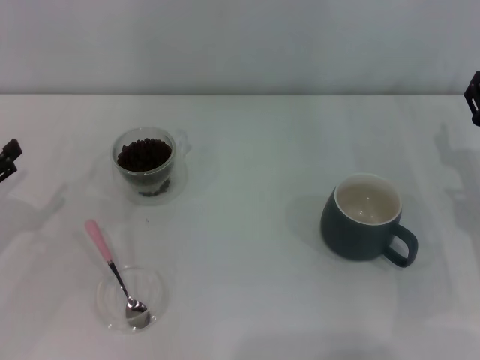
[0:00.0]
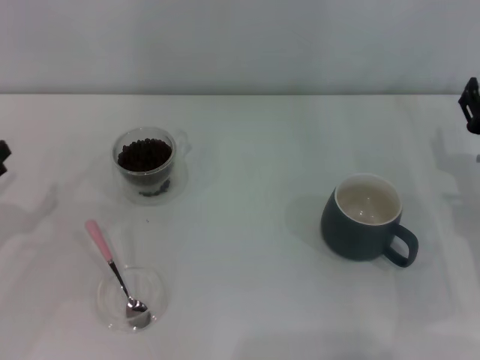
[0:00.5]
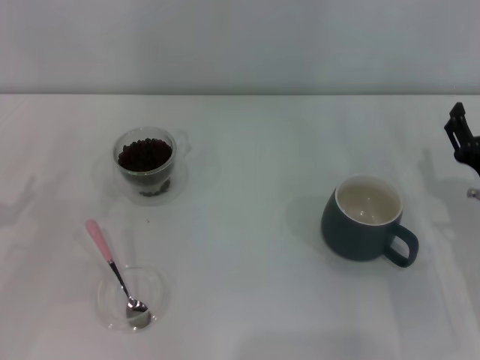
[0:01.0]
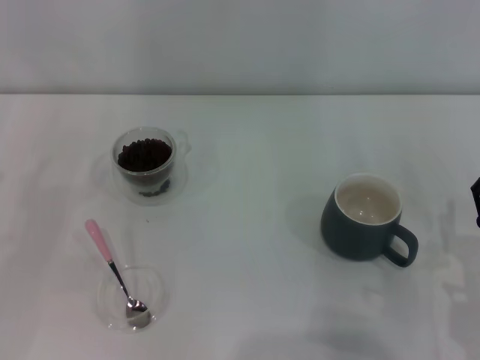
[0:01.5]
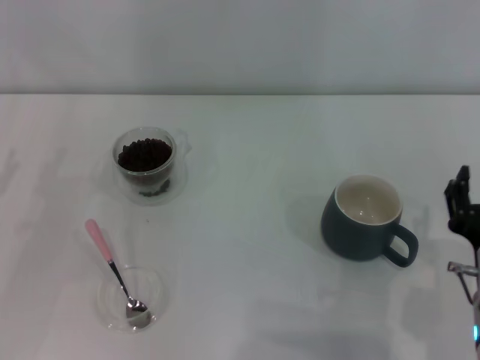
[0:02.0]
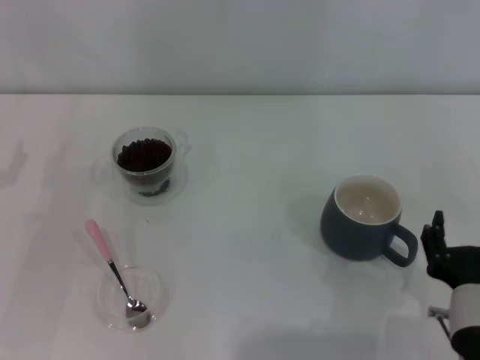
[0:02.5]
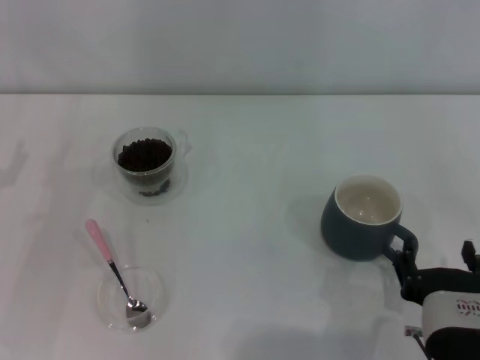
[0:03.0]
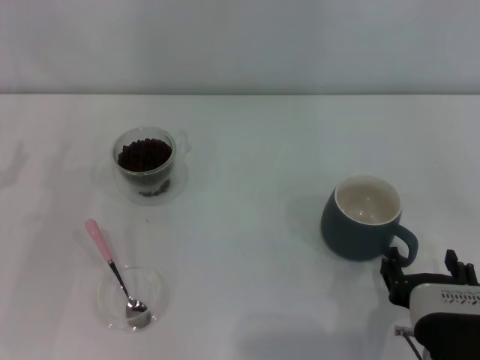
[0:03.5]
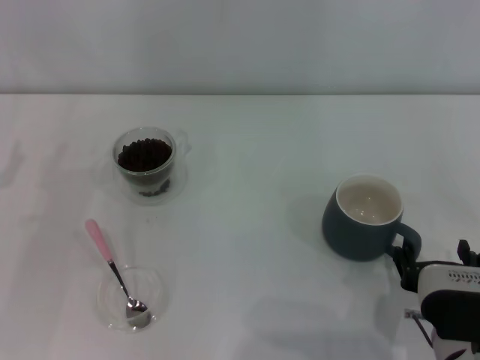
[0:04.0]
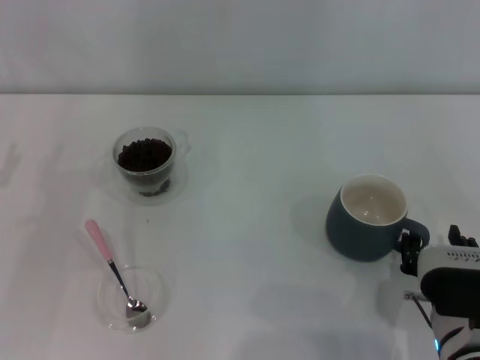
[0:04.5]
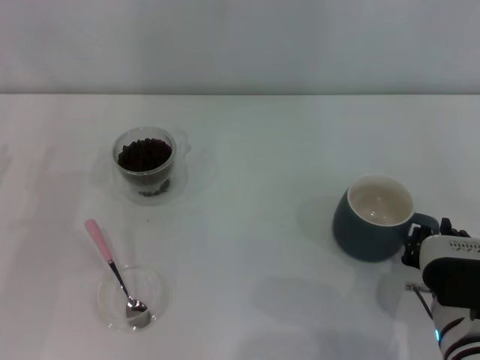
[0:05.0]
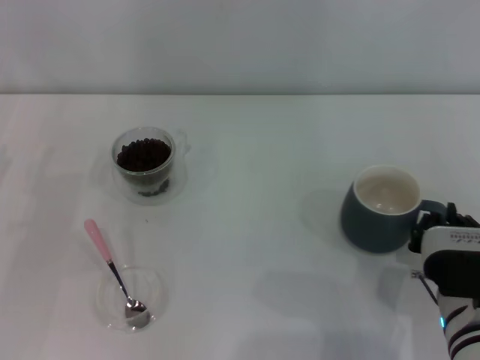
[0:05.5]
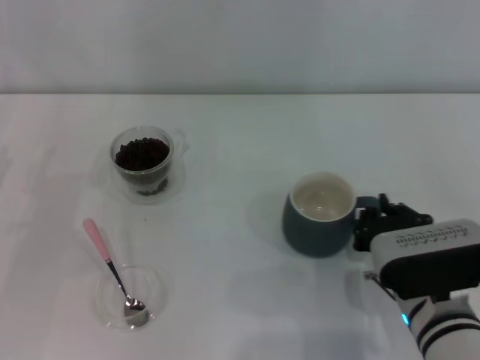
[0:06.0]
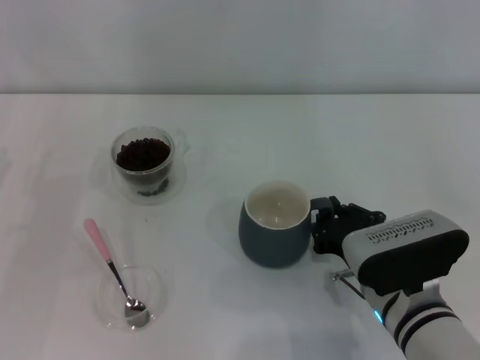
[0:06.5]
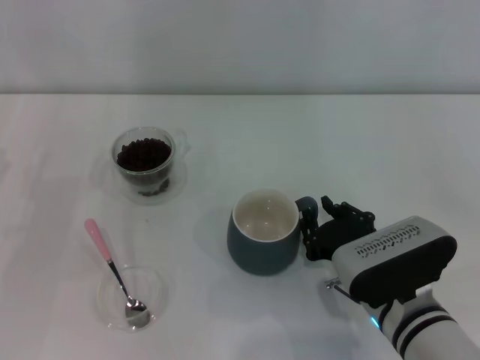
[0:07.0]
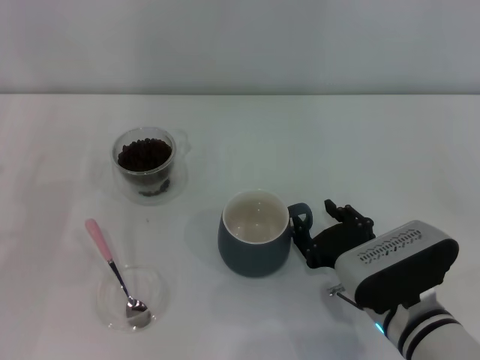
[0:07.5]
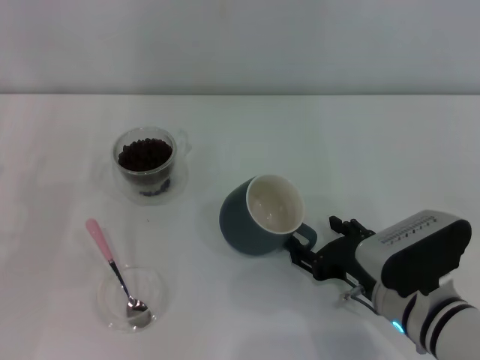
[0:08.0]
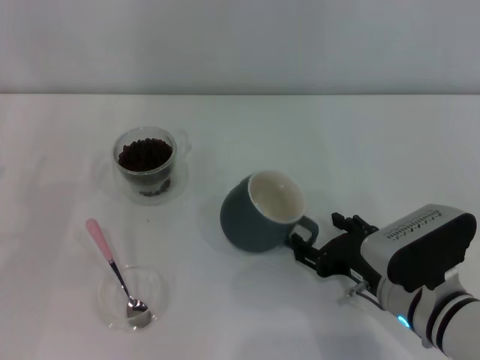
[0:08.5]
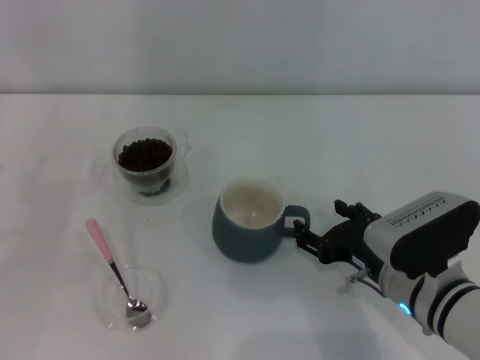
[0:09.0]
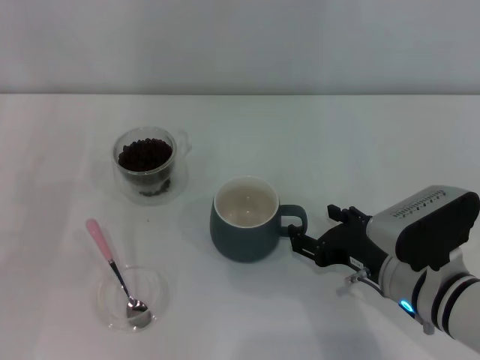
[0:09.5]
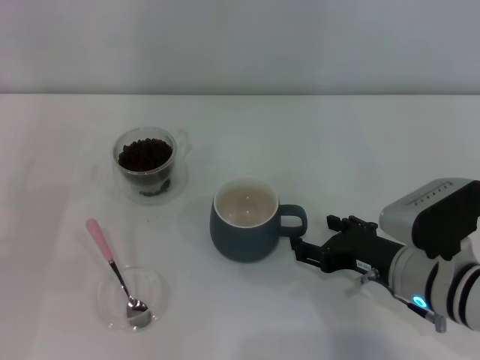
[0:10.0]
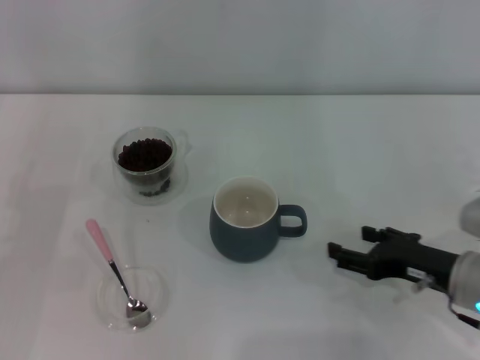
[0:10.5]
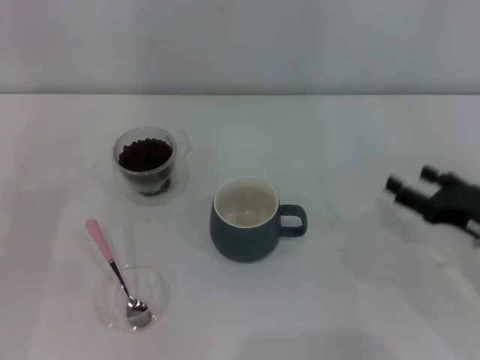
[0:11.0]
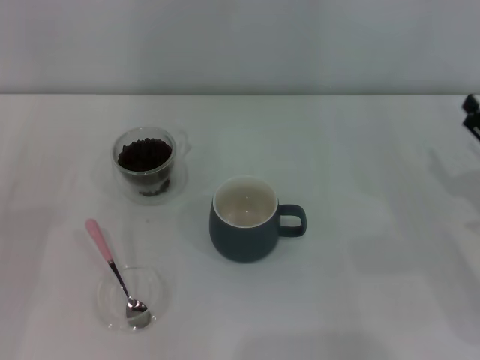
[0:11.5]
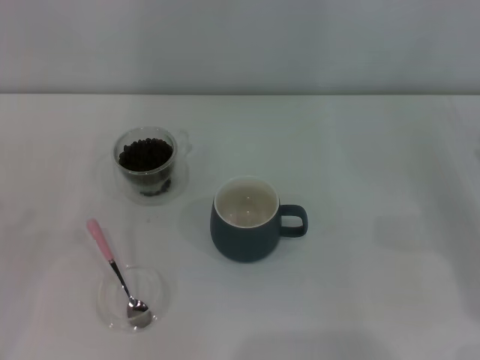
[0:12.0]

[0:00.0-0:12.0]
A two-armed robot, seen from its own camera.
Task of the whole recording: Use a pink spoon to take out the coffee beans from the glass and pour them into the gray cup.
Step, 0:00.0 to 0:10.0: Move the cup to the center of view with the left gripper.
0:00.0 to 0:02.0: The right gripper travels backward and to the left by approximately 20 cm.
0:04.0 to 0:06.0: The right gripper shifts approximately 5 cm forward, and closes its fingers.
0:06.0 to 0:08.0: The right gripper opens.
0:08.0 to 0:10.0: The grippers make only small movements.
0:10.0 to 0:12.0: The right gripper is displaced to the right by approximately 20 cm.

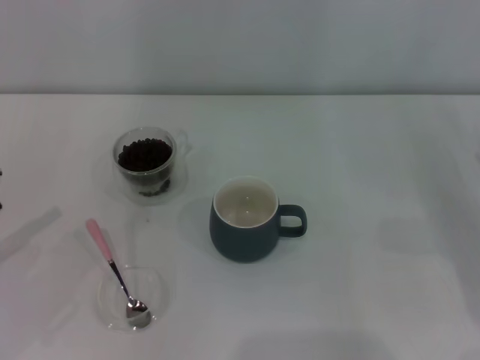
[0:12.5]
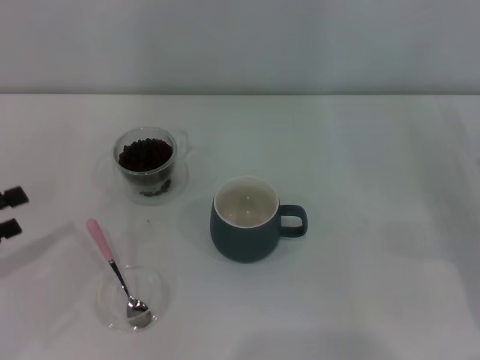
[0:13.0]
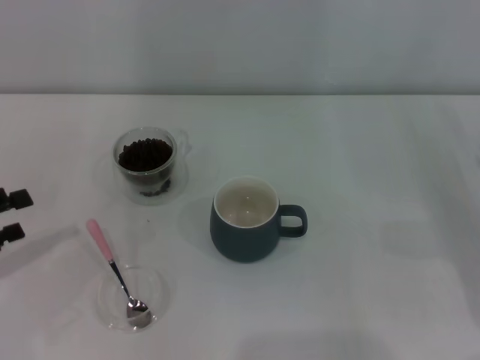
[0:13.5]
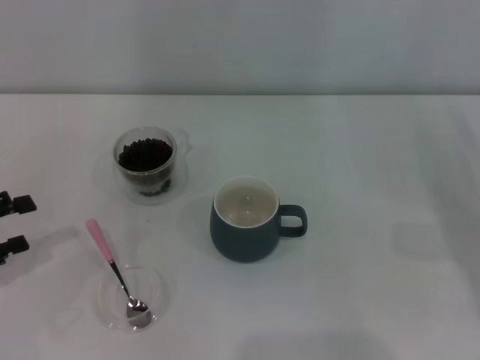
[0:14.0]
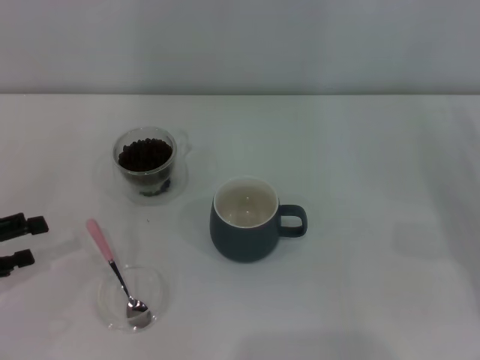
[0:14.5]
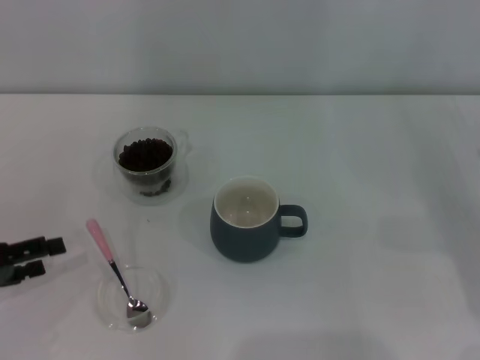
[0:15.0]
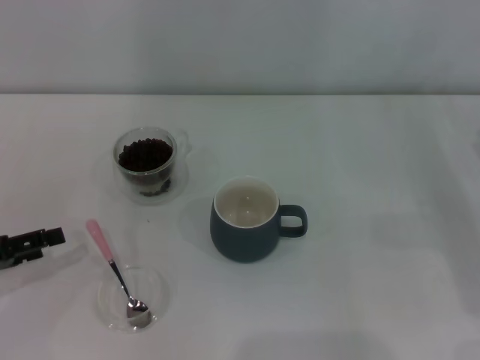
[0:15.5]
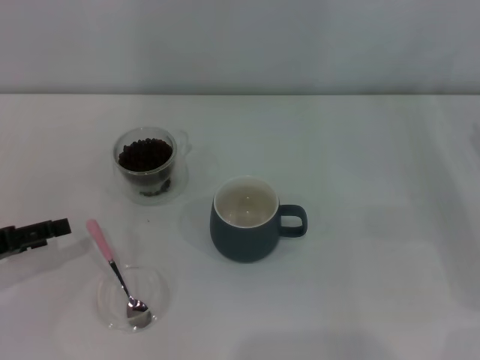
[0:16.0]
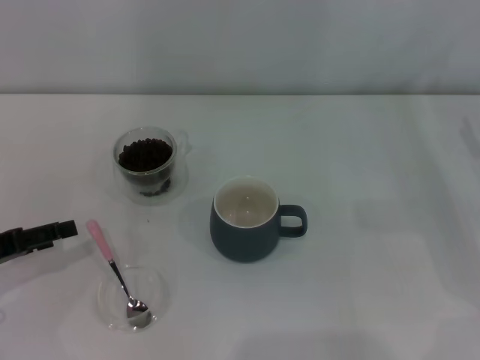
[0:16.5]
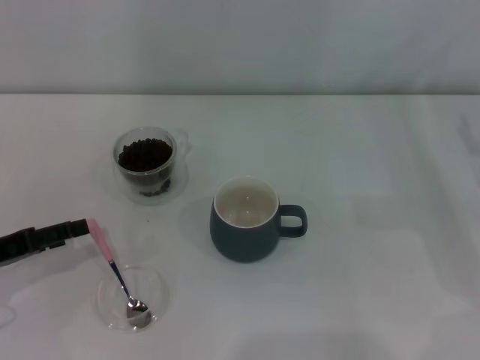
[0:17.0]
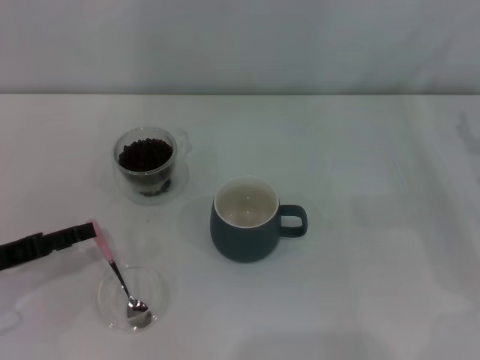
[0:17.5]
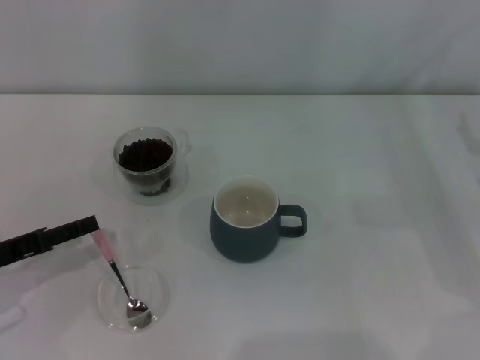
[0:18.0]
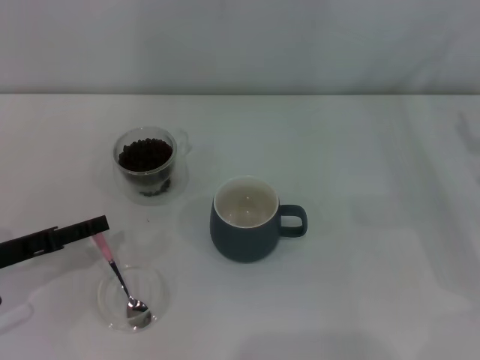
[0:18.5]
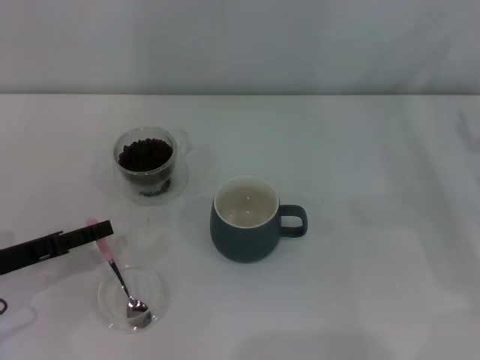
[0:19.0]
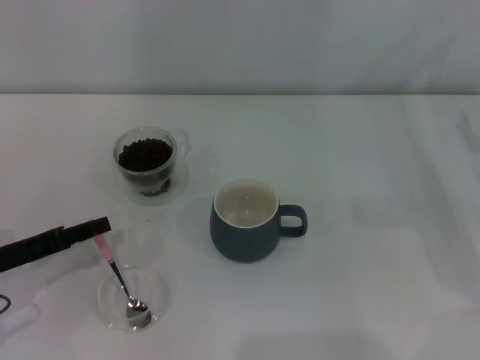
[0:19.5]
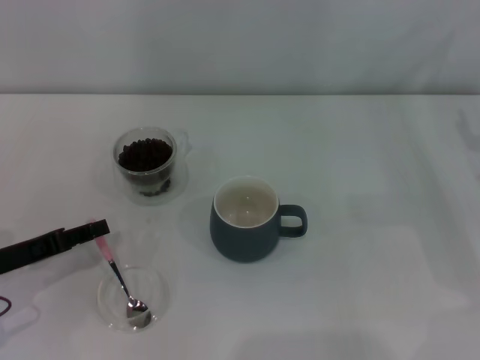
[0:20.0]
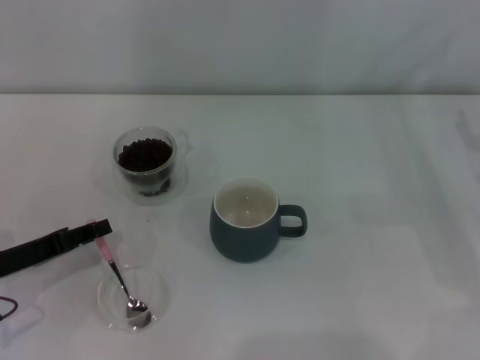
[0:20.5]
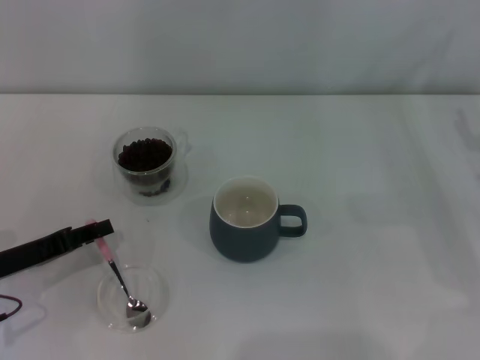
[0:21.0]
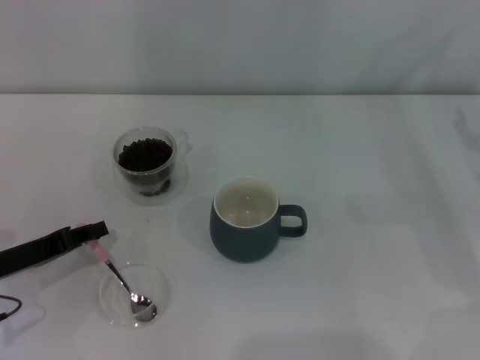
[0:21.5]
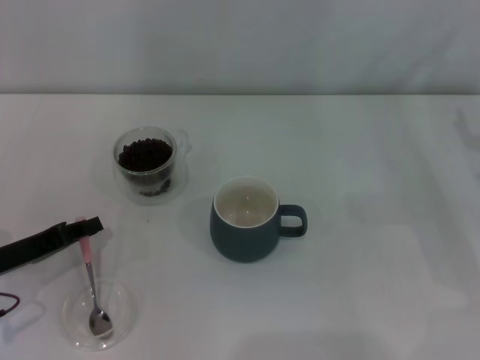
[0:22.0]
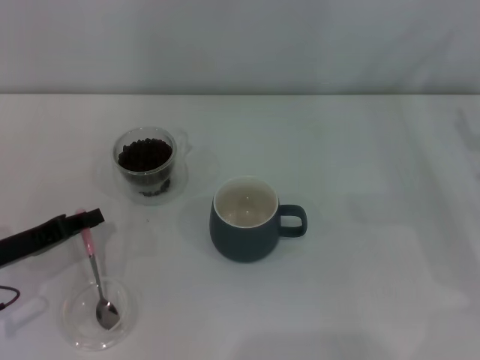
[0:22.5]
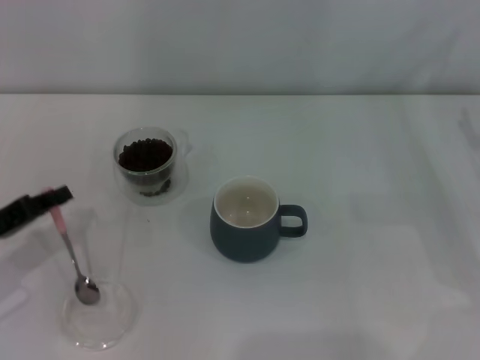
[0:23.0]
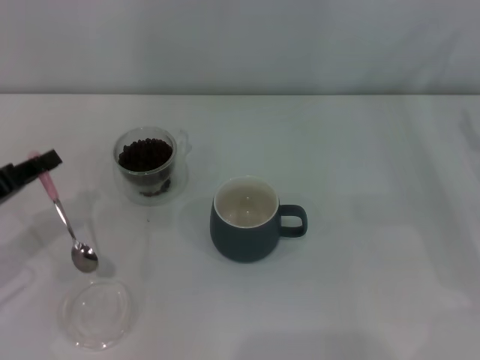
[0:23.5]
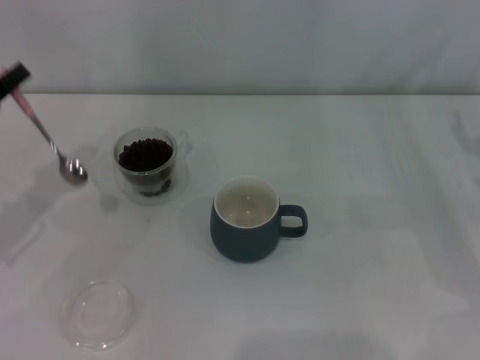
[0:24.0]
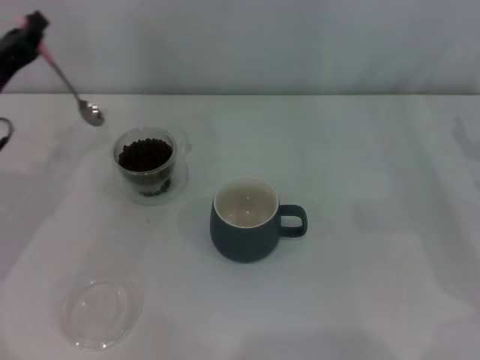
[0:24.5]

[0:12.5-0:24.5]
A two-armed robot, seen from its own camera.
Task of the whole recording: Use a pink spoon to take out the coffee beans from the glass and pour them into the gray cup.
Step, 0:12.5 to 0:23.0: Pick up the spoon with the right gripper.
0:16.5 to 0:18.5: The grippers move only a little.
0:18.5 to 0:20.5: The left gripper closes.
0:20.5 to 0:22.5: The left gripper closes up.
0:22.5 to 0:24.5: The left gripper travels forward and upward by about 10 cm.

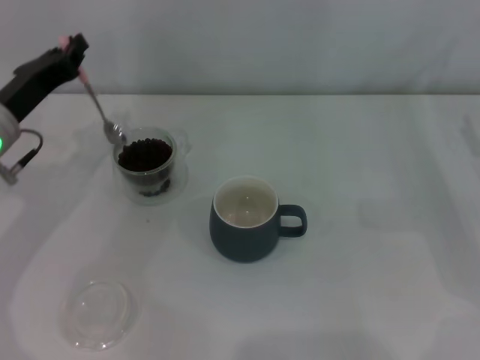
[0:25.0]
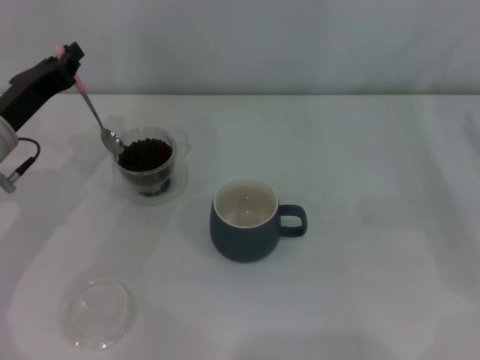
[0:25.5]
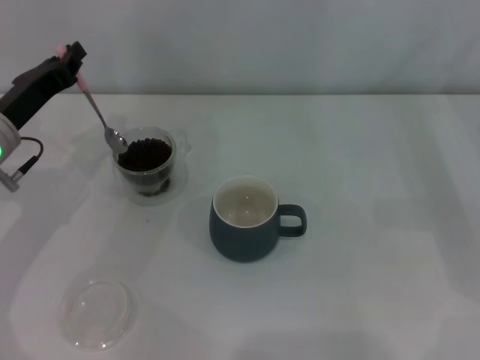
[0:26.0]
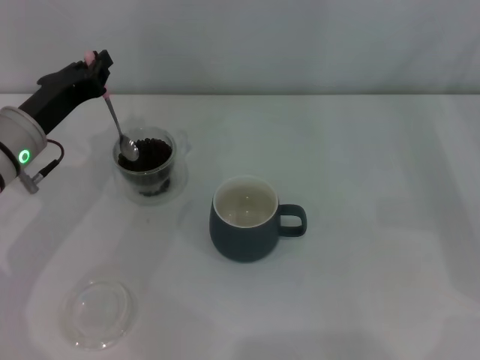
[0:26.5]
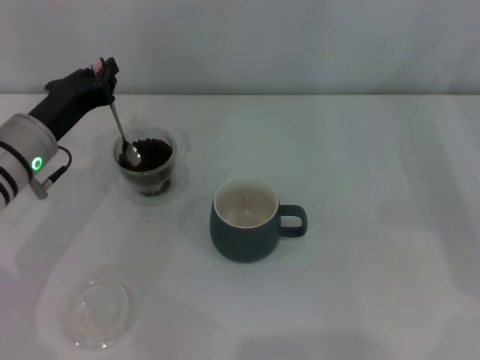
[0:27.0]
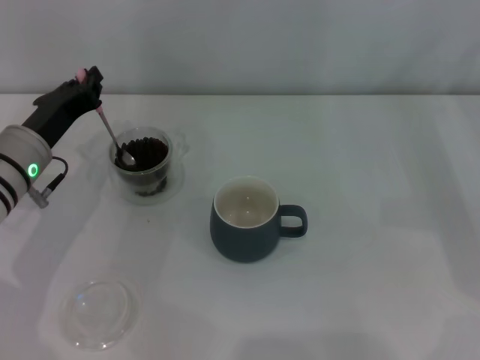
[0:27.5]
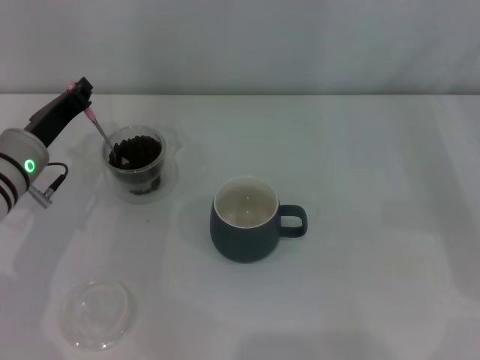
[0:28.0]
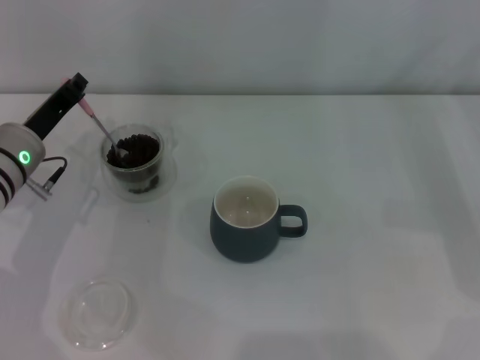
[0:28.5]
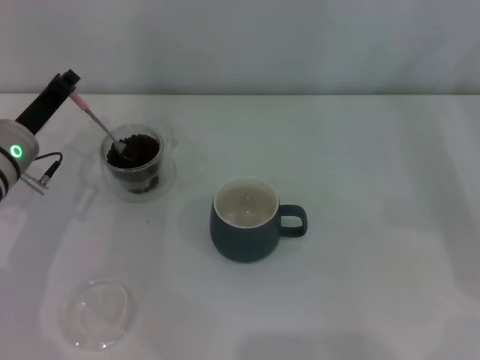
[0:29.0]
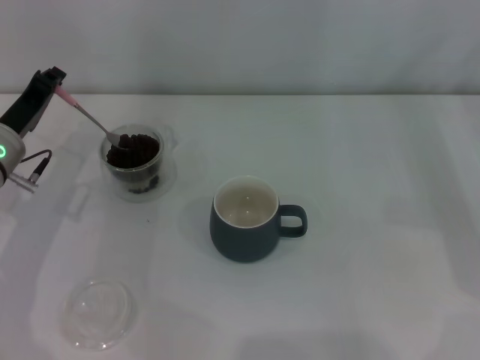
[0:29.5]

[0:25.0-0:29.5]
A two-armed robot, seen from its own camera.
Task of the whole recording: Use a pink spoon to take out the coffee beans from the glass and pour them into the gray cup.
0:25.0 to 0:27.0: There are only small adjustments of the grippers.
